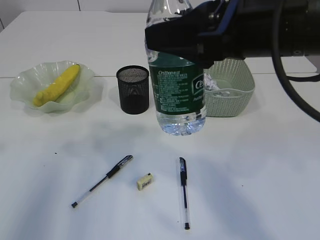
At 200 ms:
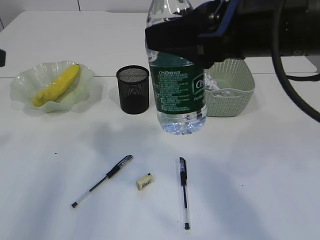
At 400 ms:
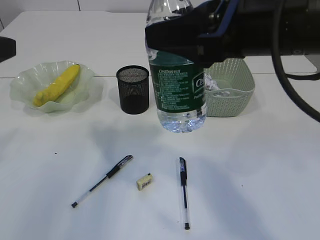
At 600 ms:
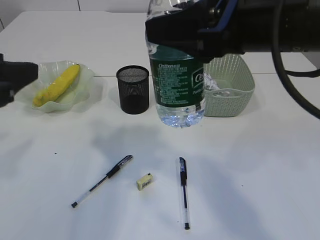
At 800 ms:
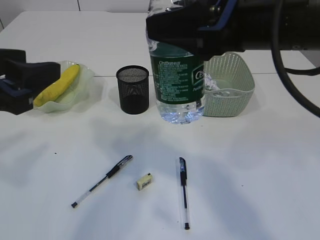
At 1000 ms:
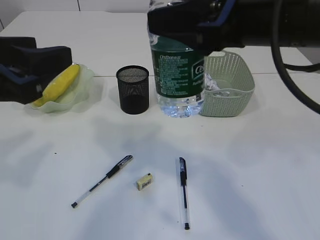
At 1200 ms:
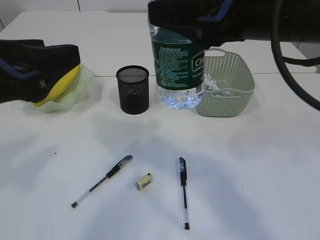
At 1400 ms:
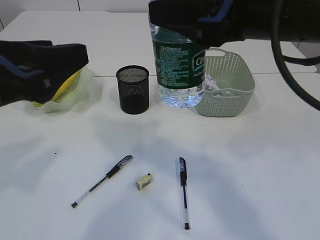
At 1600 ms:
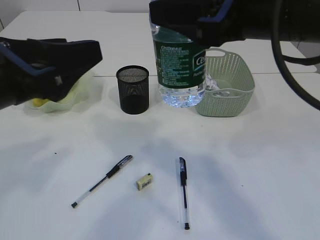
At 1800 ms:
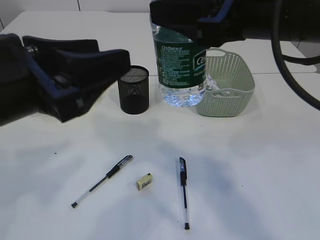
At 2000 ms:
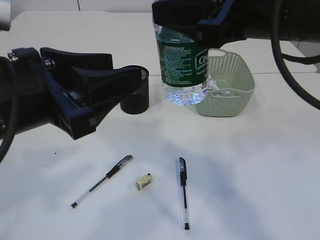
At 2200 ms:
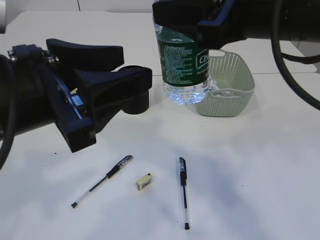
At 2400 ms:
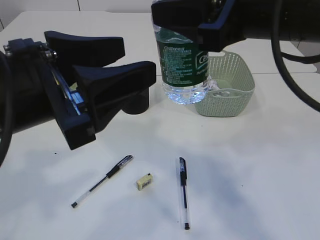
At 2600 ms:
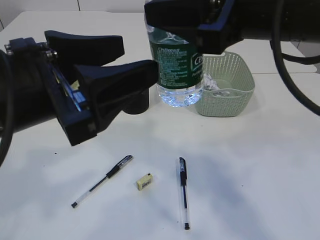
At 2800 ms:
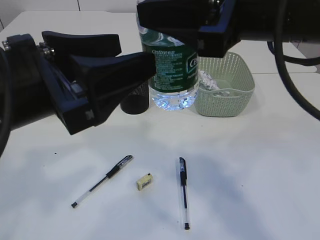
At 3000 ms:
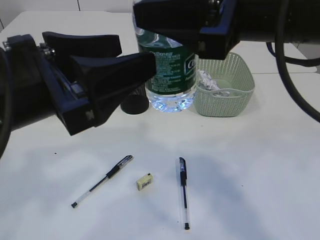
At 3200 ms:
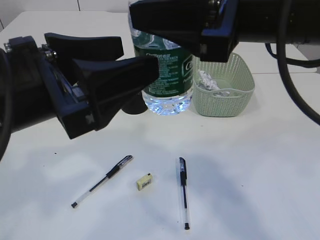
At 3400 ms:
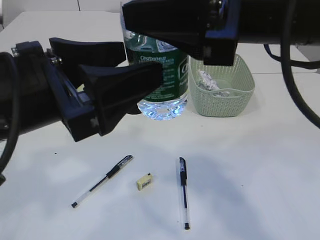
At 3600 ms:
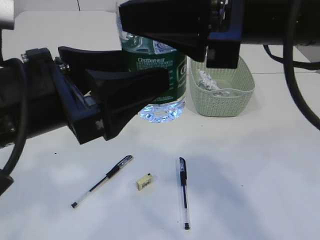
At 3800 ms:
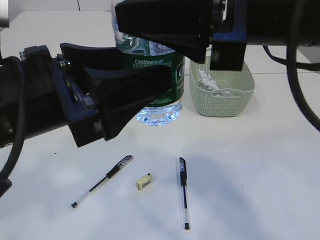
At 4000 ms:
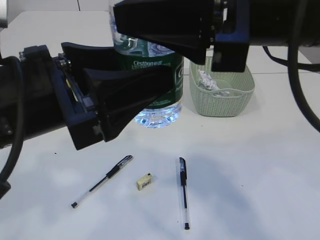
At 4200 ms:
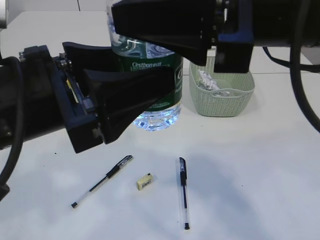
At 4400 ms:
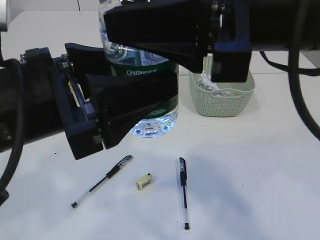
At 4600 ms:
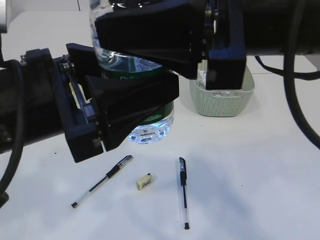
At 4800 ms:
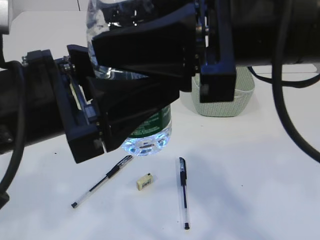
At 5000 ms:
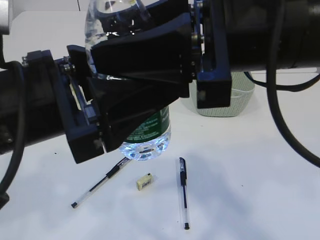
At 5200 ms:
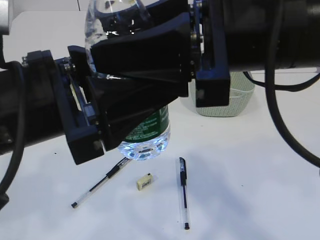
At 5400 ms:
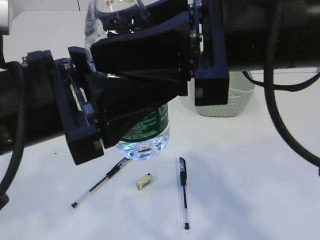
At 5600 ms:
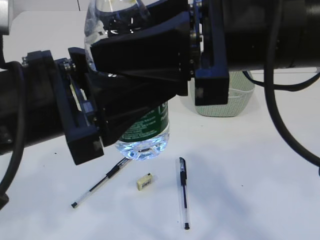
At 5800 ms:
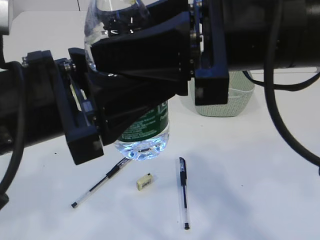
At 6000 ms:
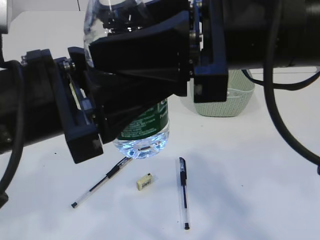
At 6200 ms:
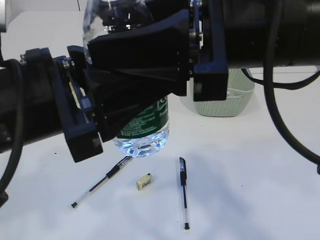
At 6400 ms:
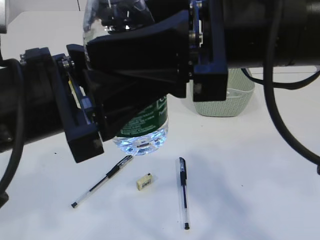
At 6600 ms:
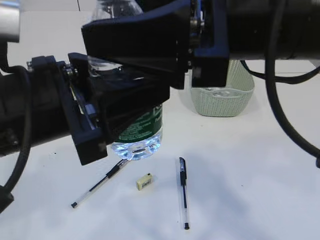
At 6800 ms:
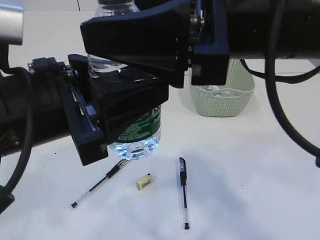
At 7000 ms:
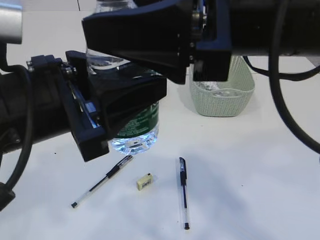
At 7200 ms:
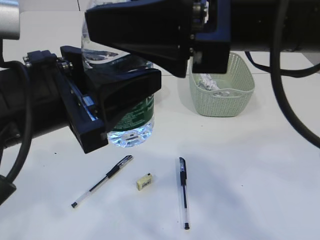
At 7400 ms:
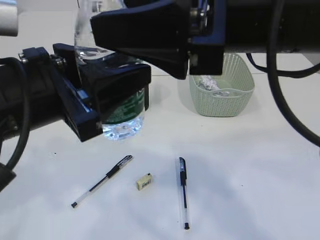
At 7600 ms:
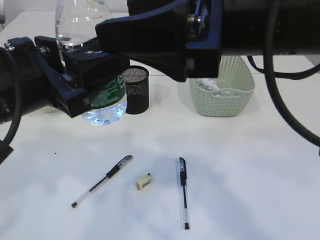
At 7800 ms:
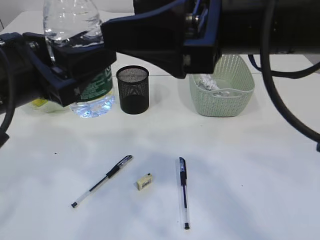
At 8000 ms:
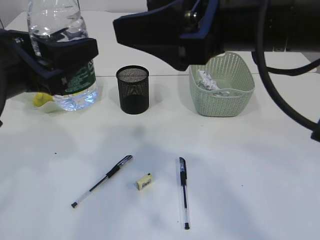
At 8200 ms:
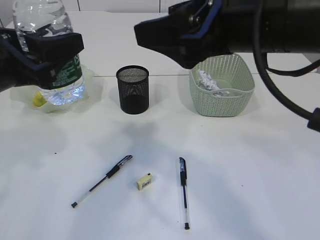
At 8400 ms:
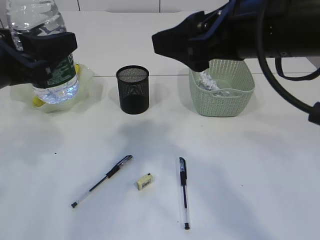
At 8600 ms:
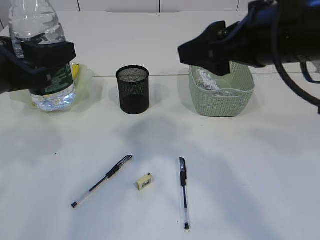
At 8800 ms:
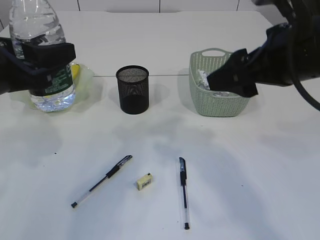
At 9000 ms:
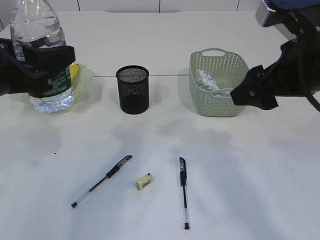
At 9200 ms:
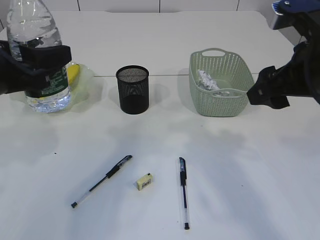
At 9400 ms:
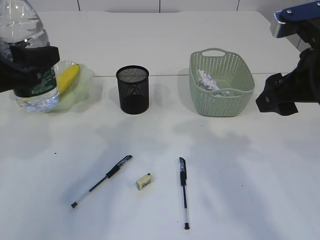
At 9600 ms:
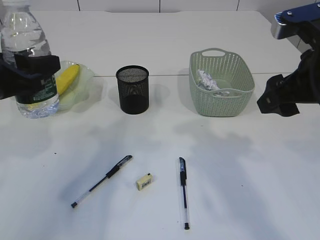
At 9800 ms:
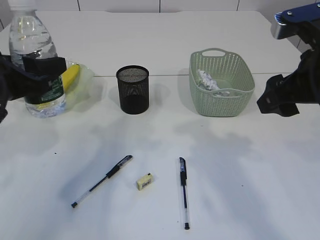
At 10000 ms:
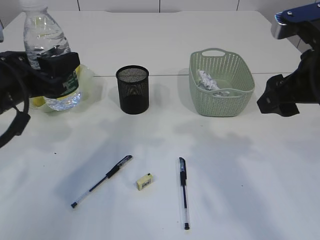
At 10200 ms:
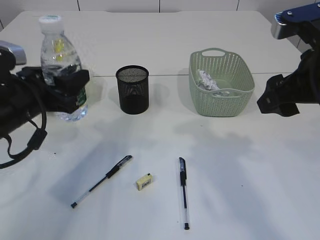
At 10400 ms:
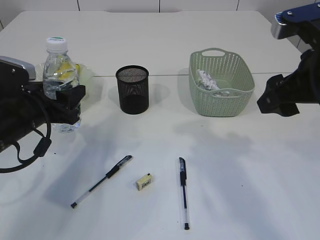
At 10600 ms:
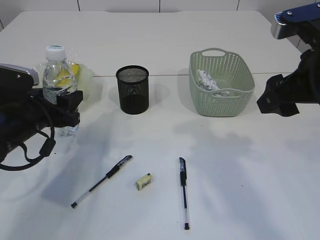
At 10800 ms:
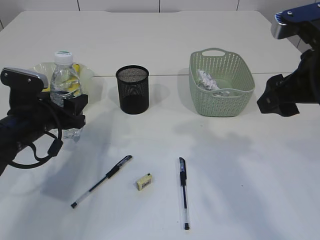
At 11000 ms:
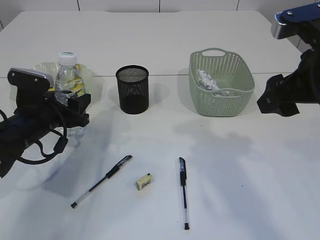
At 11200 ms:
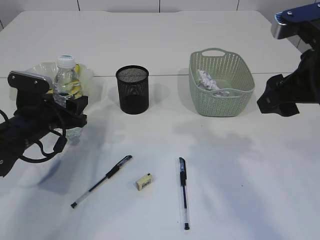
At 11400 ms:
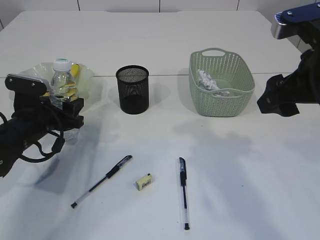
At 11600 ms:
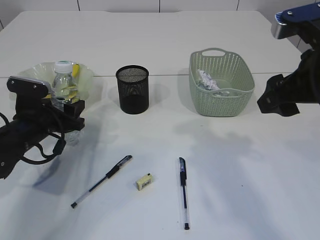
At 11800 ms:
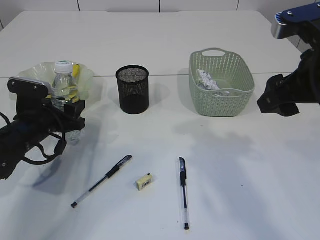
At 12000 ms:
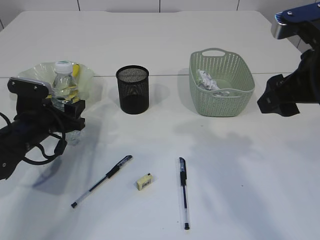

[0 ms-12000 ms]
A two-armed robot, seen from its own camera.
Step, 0 ms to 7800 ms: transfer the bottle to the left arm.
0 ms to 1600 ms: The left gripper heads to the right, covering about 10 cm.
4400 ms to 6000 ms: There are only small adjustments of the grippers.
7600 ms to 9000 ms: The right gripper heads to the right and downward, covering roughly 10 cm. Meanwhile the left gripper shifts roughly 5 cm to the left.
9000 ms to 10400 ms: The left gripper heads downward and forward, covering some 15 cm.
10400 ms to 12000 ms: The left gripper is displaced downward by about 5 cm.

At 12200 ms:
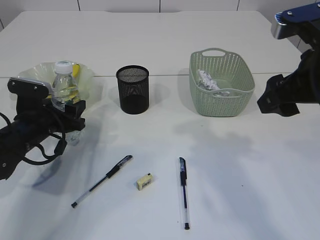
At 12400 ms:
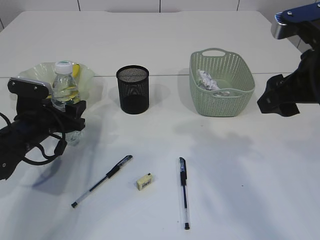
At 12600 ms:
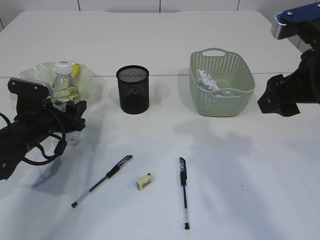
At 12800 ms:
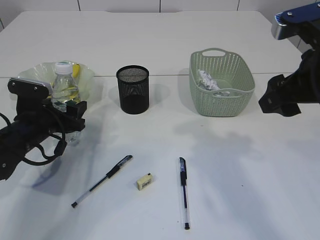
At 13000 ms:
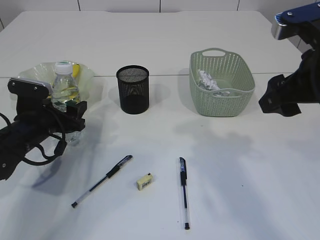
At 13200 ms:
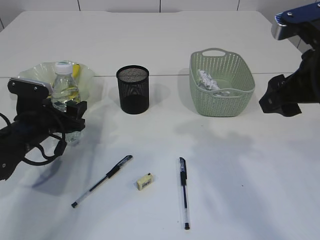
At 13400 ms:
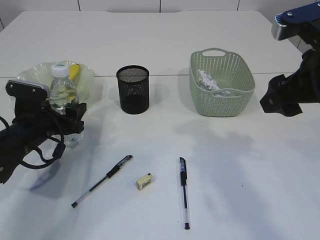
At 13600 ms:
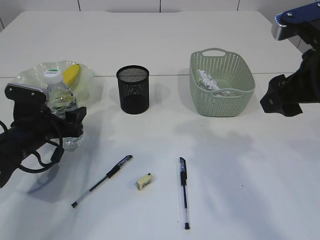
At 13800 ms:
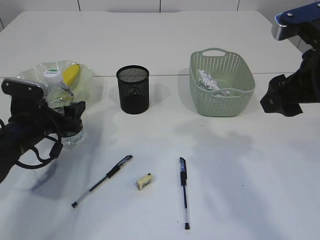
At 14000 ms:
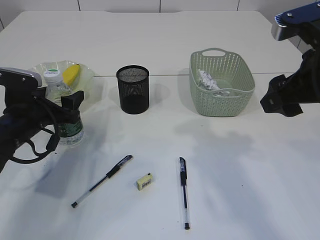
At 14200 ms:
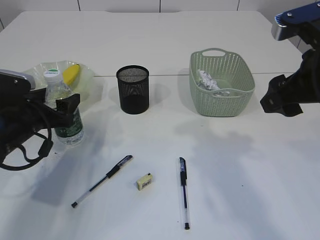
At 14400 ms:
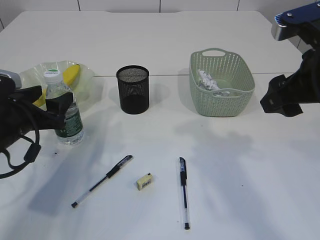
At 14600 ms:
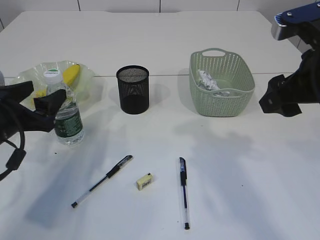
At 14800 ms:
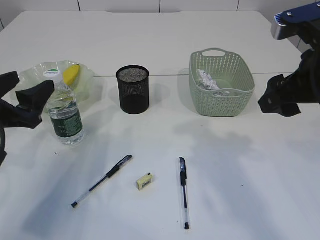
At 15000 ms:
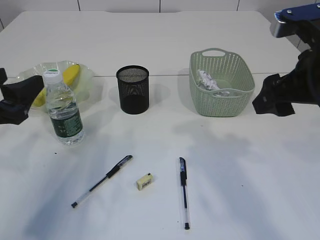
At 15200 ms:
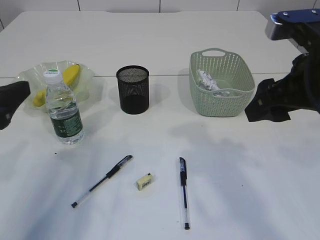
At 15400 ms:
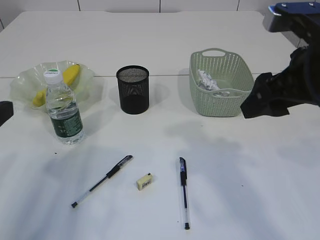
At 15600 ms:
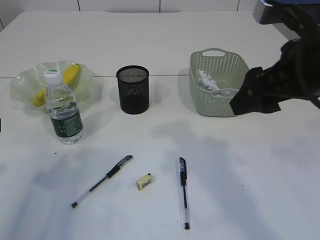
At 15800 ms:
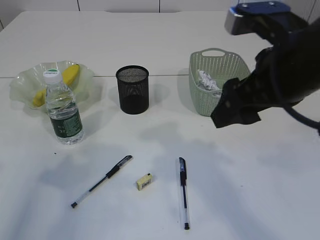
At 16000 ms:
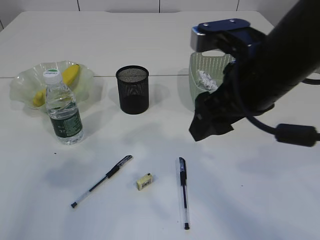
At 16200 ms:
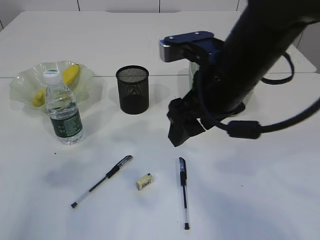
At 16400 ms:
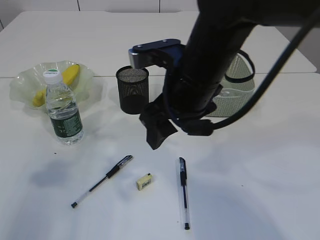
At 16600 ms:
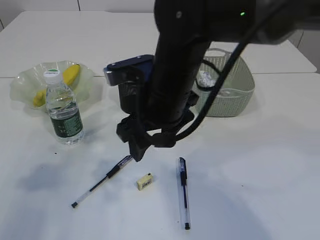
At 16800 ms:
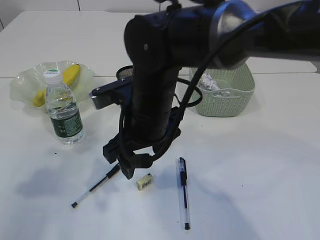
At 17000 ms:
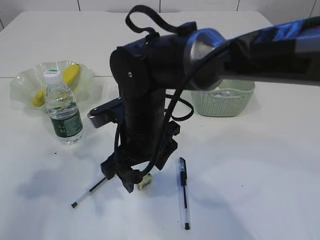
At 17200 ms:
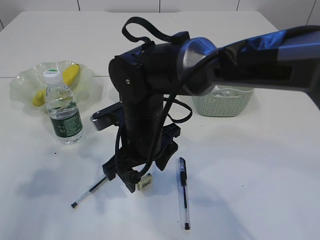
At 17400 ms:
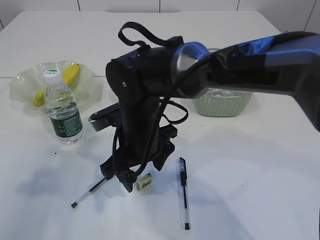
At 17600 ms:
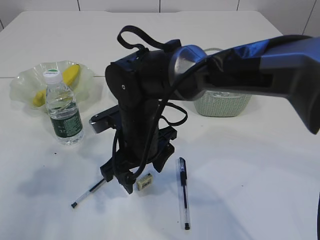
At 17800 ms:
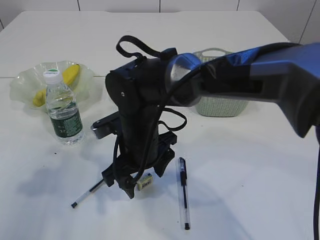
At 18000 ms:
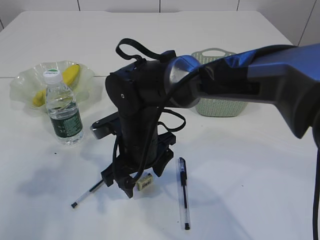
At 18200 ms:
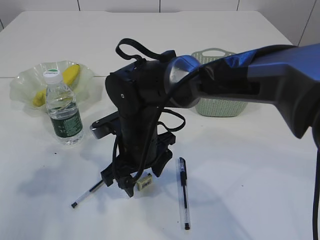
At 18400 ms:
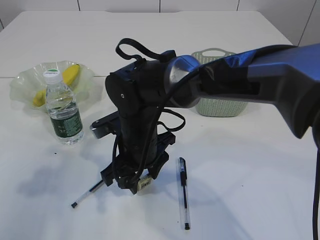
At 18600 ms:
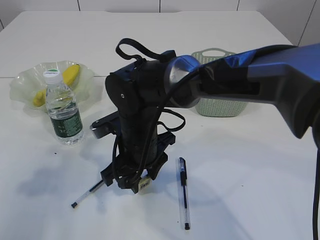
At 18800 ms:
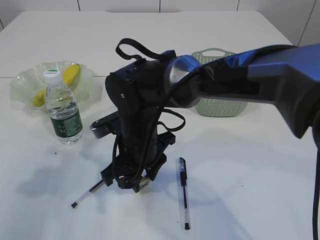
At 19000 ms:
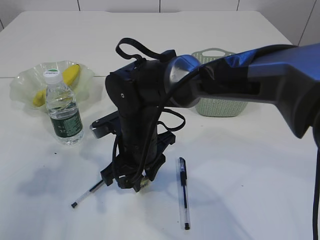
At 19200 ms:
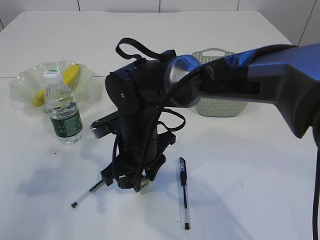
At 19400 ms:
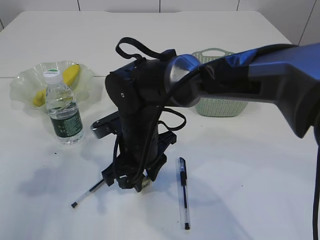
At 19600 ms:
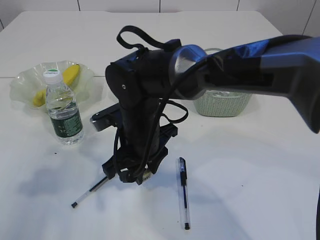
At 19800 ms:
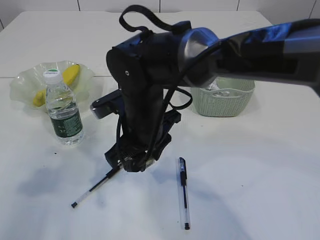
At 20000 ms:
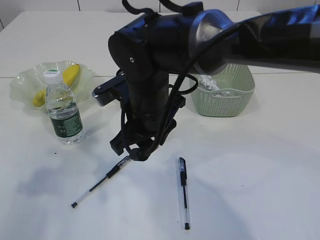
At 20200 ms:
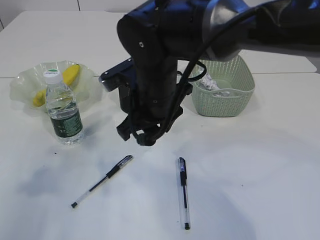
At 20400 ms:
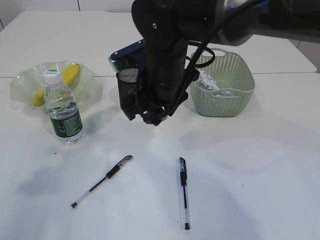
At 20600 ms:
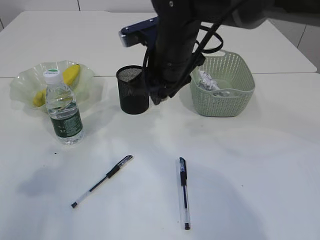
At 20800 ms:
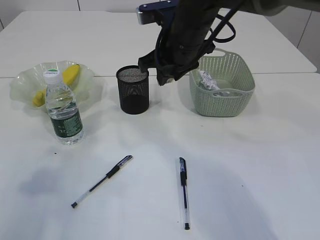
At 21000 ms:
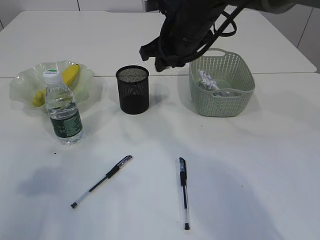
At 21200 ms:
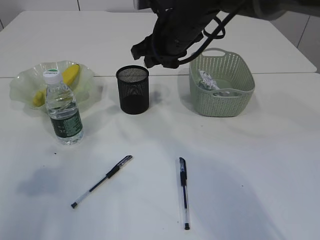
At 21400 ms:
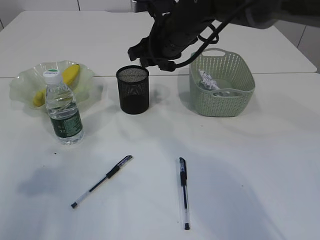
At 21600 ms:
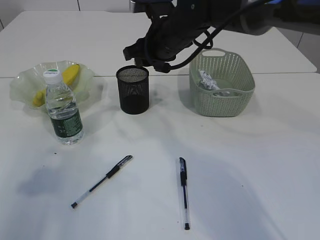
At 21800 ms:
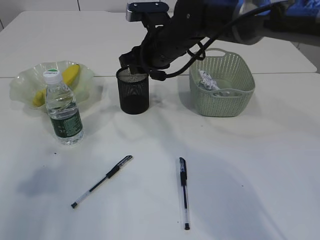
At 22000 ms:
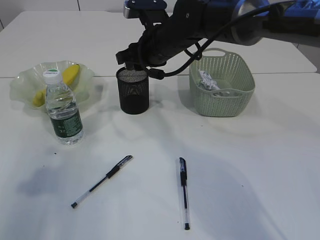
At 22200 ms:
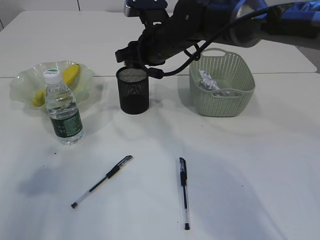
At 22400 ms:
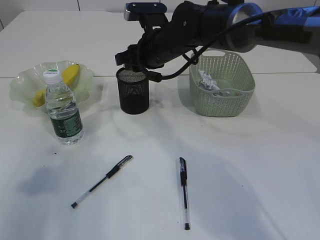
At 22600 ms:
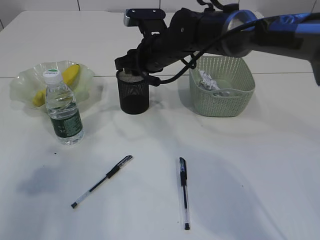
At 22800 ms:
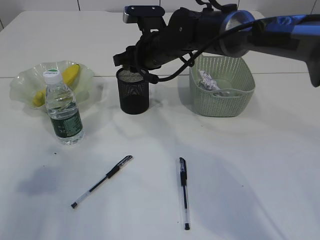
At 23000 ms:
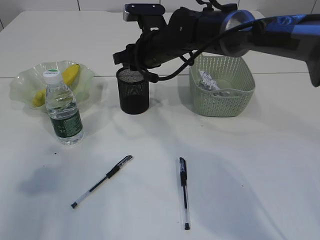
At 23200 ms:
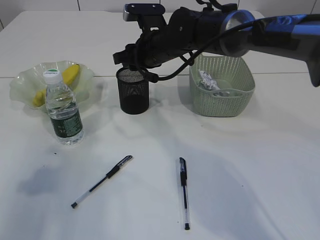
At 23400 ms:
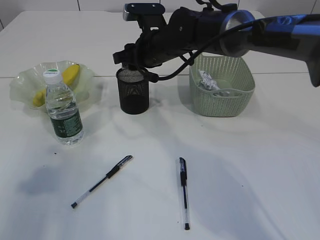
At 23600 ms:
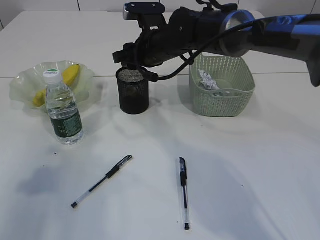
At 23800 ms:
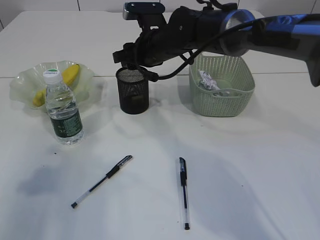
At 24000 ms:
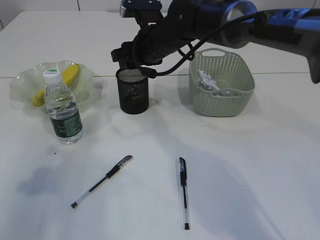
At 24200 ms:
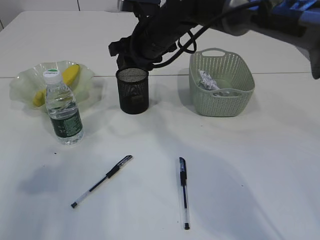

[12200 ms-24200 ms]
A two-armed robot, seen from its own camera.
Step, 12200 ms to 14800 ms: Place the bottle.
Step, 15000 ms to 19800 ms: Pick up the eraser.
12200 ms to 13800 ms: Both grippers stay put.
13800 ms to 15200 ms: The left gripper heads upward and backward, covering approximately 20 cm.
15200 ms to 16600 ms: The left gripper moves upward, about 5 cm. The right gripper goes about 20 cm to the left.
16600 ms to 18200 ms: The right gripper shifts about 10 cm downward and to the left.
18200 ms to 19800 ms: The right gripper closes up.
19800 ms to 21200 ms: The right gripper moves forward, upward and to the right, roughly 15 cm.
21200 ms to 22600 ms: The right gripper goes about 5 cm downward.
22600 ms to 24200 ms: The grippers make only small movements.
